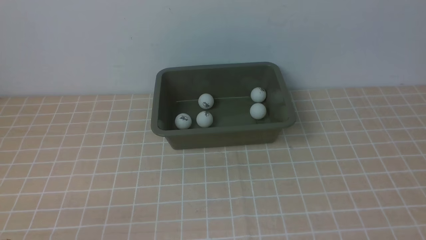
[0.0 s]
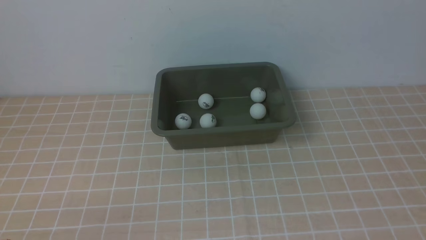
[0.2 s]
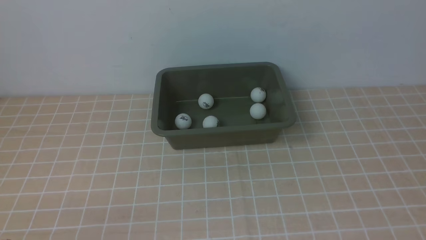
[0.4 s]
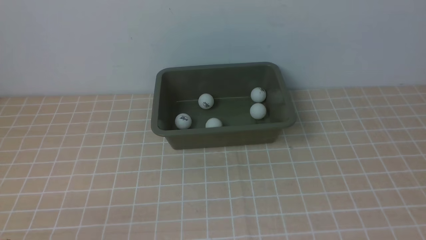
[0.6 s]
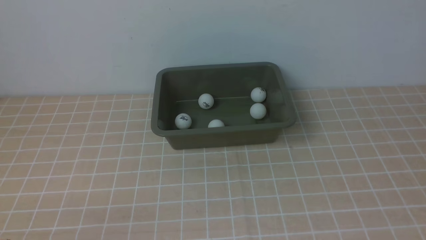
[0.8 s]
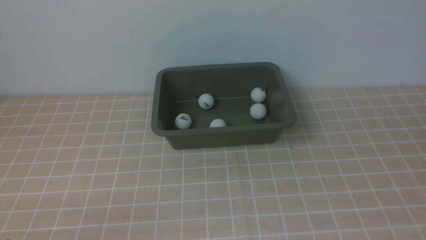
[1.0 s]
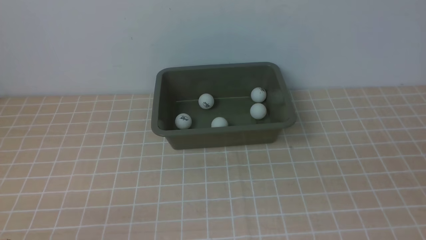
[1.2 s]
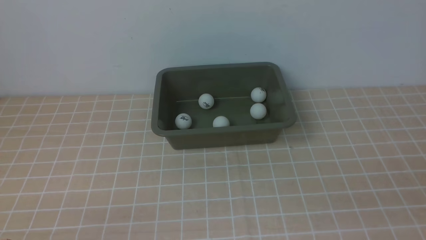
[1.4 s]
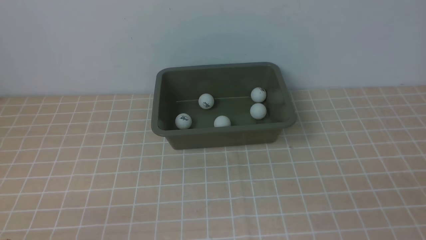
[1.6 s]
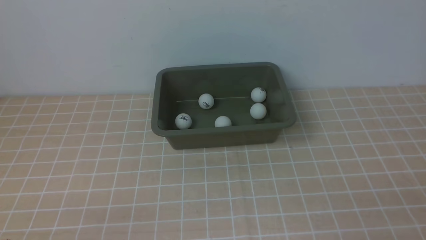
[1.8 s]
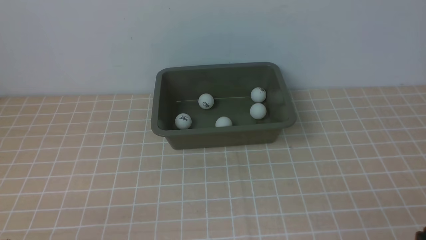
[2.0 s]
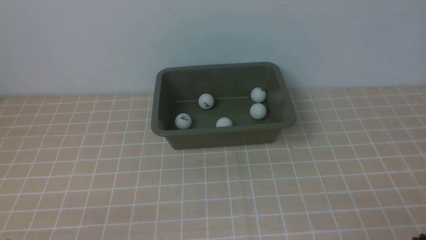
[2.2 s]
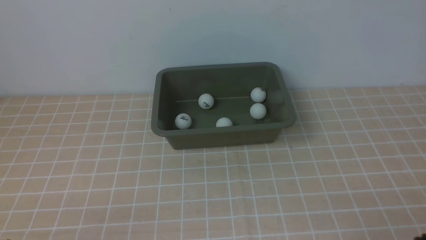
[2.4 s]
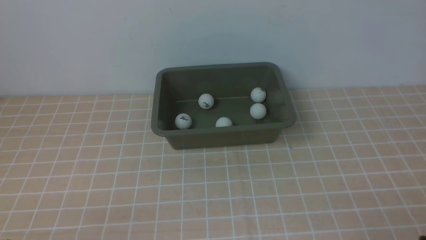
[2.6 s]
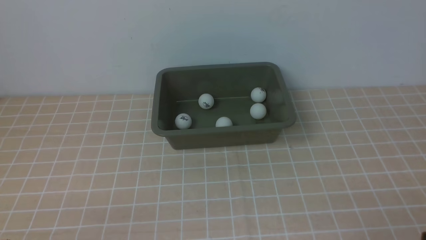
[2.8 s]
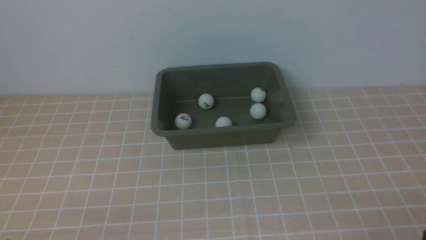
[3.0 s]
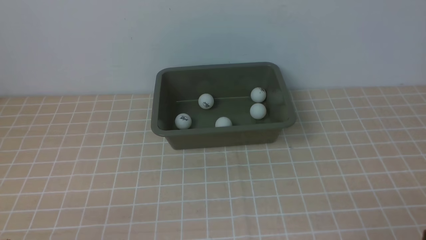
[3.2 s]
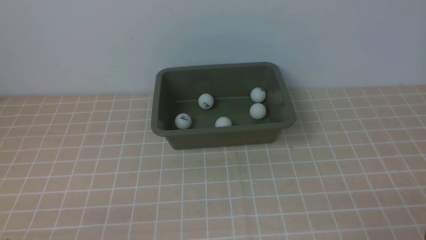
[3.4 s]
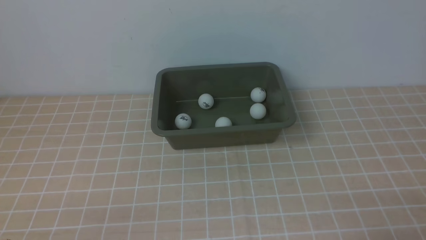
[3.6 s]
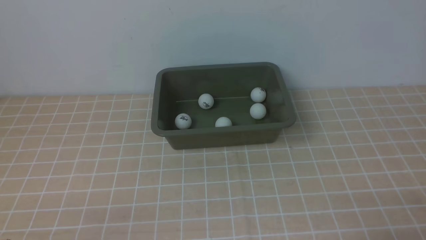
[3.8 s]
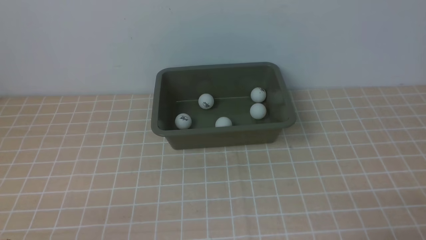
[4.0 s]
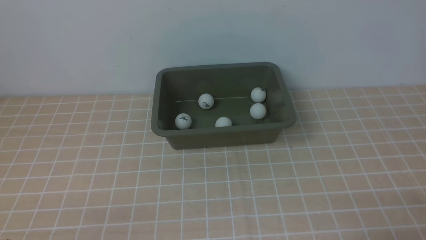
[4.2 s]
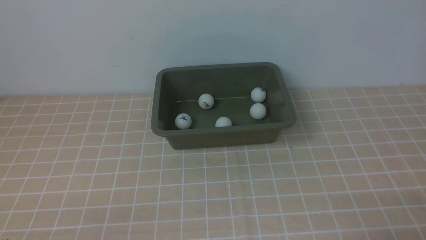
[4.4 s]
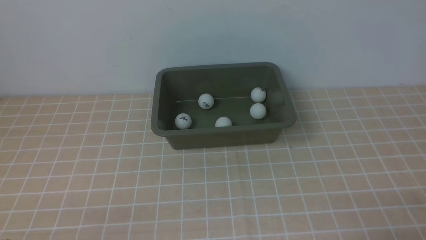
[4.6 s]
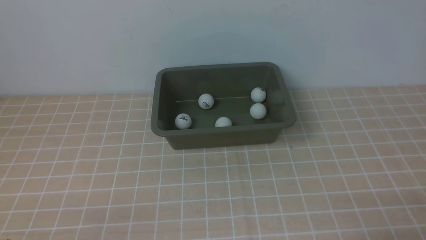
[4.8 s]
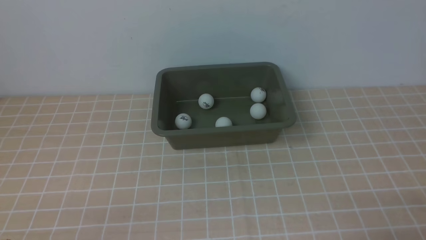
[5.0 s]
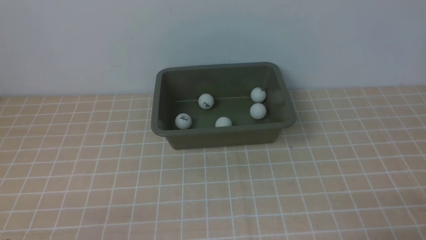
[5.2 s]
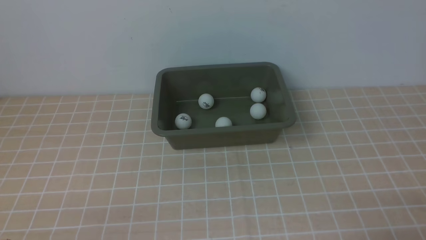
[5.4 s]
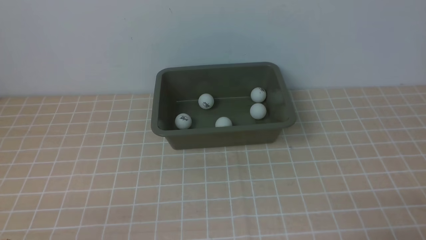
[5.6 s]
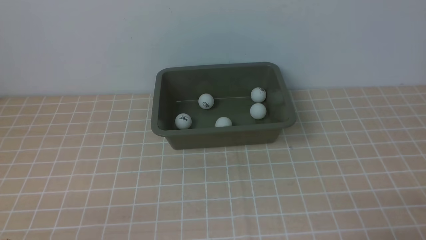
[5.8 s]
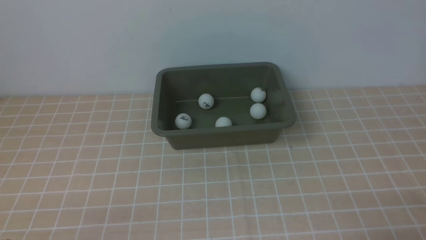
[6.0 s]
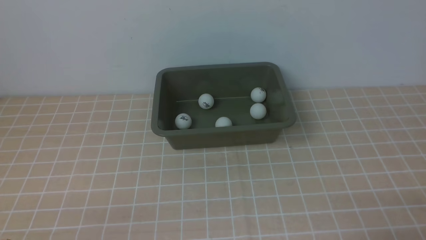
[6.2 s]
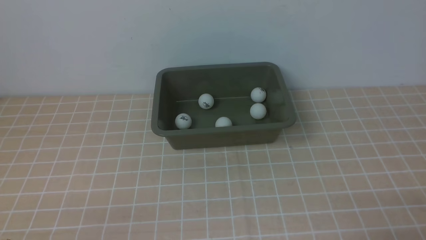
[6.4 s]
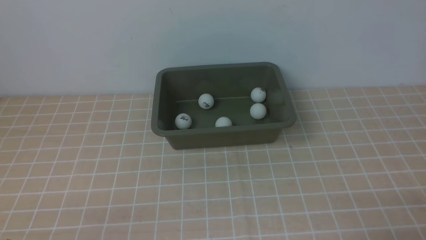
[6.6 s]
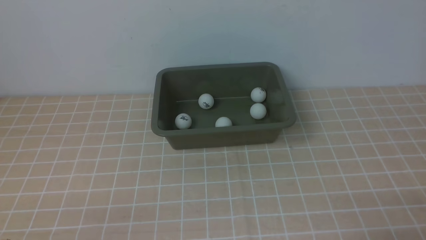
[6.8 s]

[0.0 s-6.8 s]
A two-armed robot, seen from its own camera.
4.0 to 6.8 s: Both grippers stay about where they are.

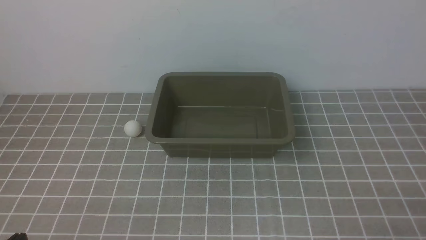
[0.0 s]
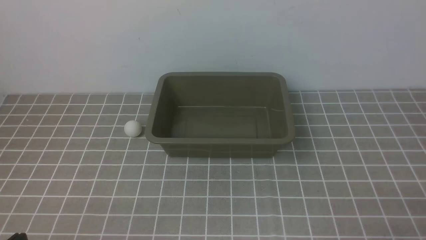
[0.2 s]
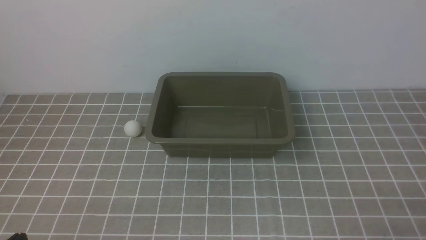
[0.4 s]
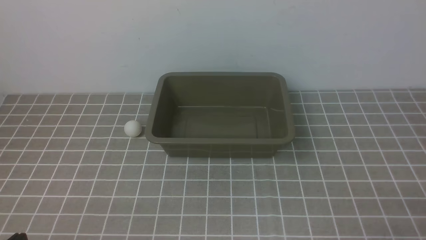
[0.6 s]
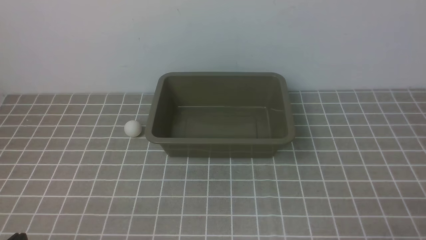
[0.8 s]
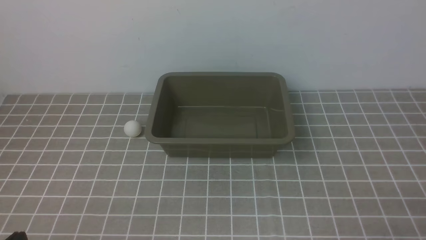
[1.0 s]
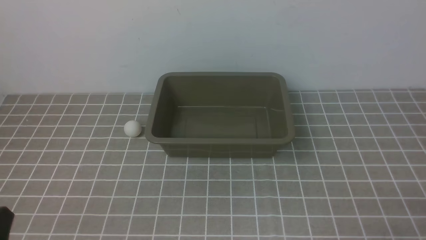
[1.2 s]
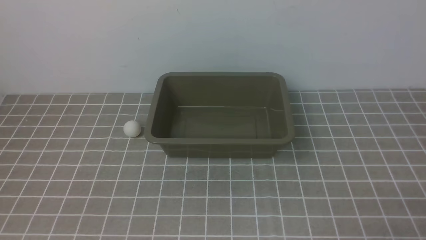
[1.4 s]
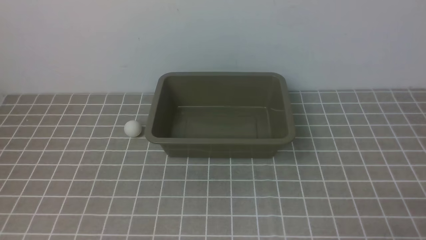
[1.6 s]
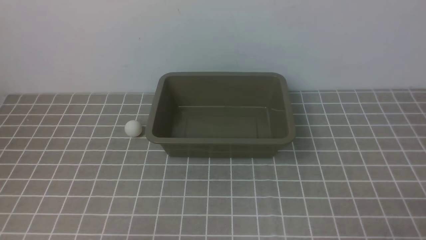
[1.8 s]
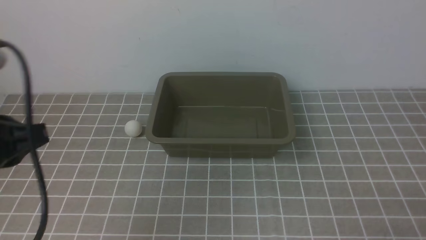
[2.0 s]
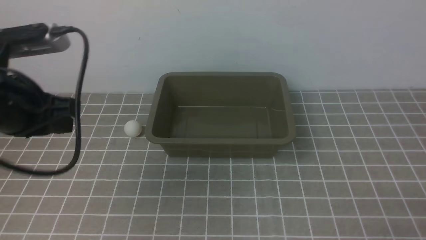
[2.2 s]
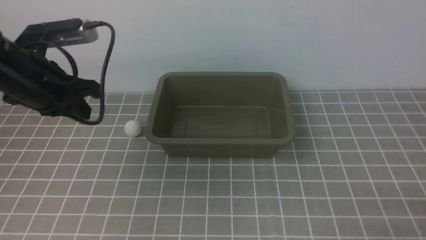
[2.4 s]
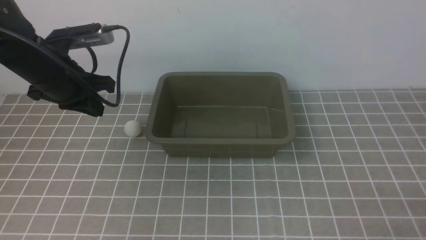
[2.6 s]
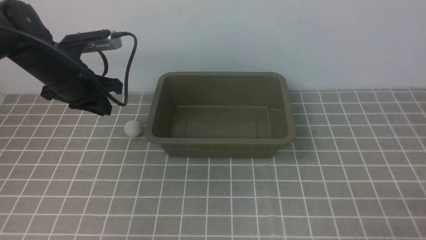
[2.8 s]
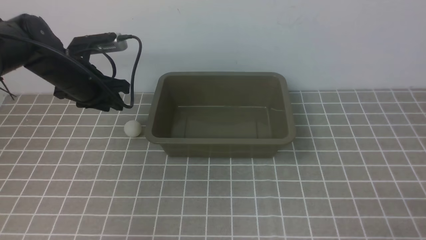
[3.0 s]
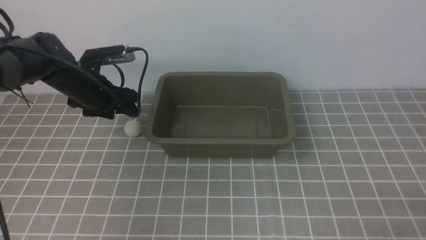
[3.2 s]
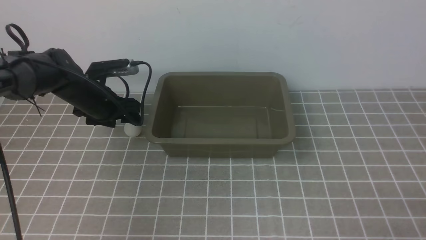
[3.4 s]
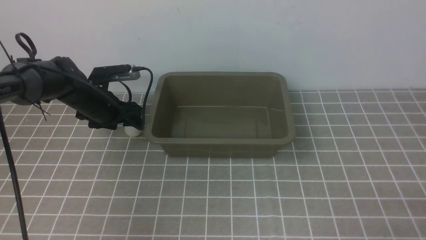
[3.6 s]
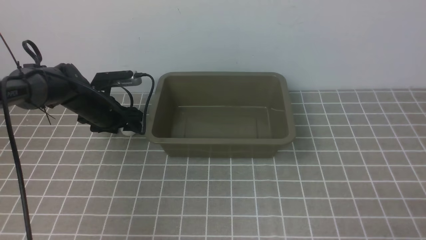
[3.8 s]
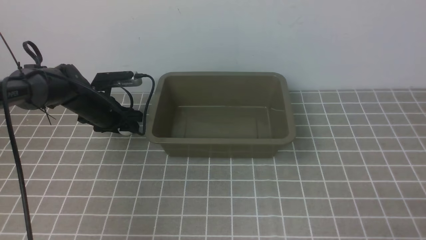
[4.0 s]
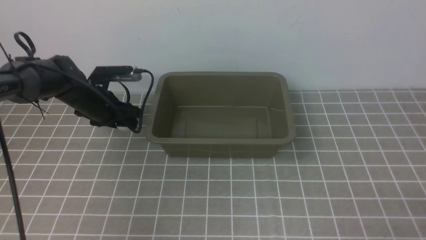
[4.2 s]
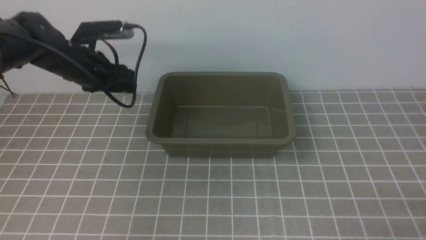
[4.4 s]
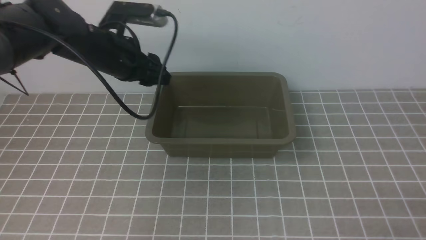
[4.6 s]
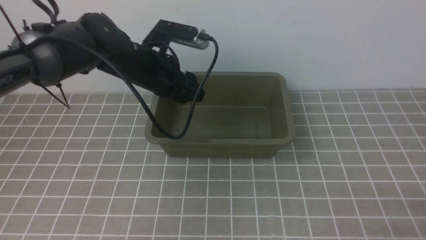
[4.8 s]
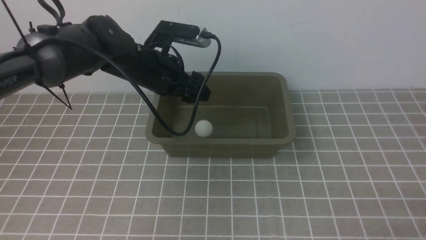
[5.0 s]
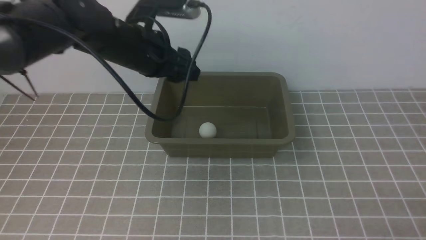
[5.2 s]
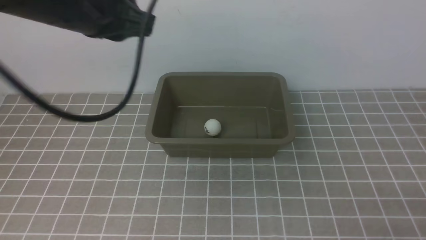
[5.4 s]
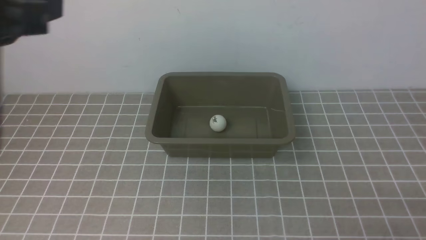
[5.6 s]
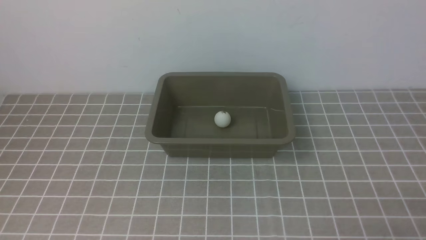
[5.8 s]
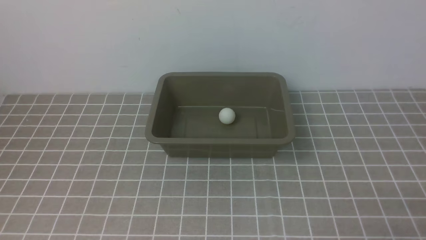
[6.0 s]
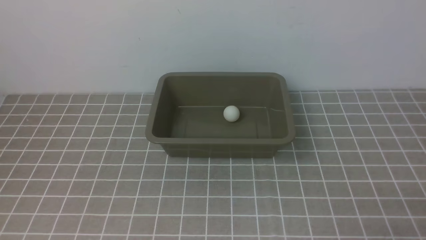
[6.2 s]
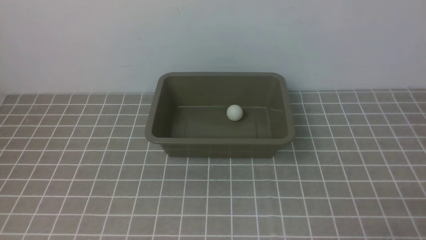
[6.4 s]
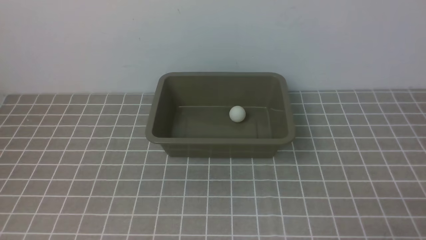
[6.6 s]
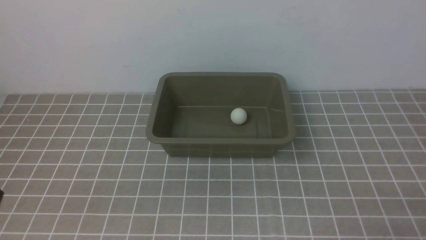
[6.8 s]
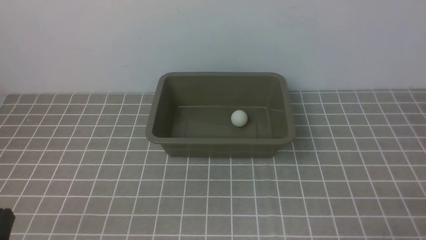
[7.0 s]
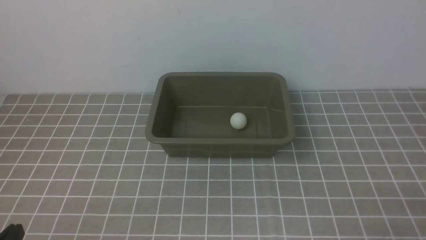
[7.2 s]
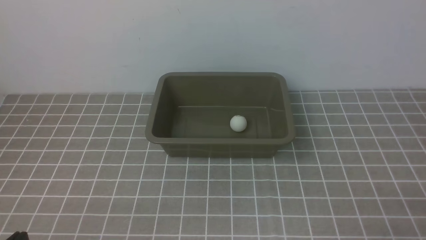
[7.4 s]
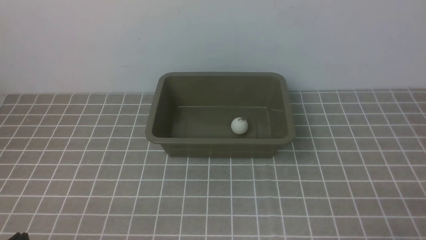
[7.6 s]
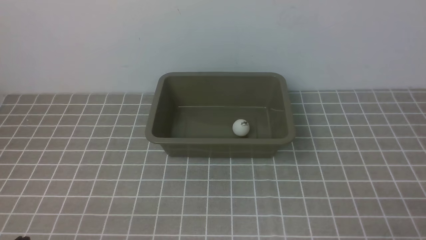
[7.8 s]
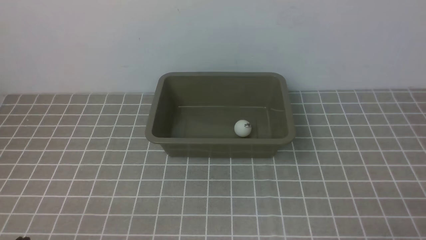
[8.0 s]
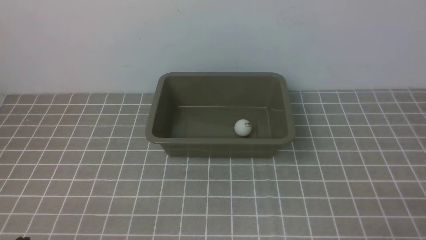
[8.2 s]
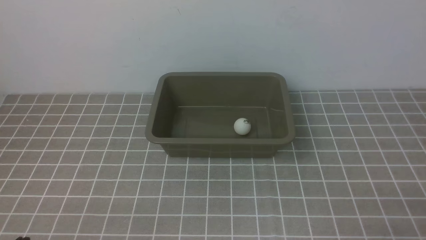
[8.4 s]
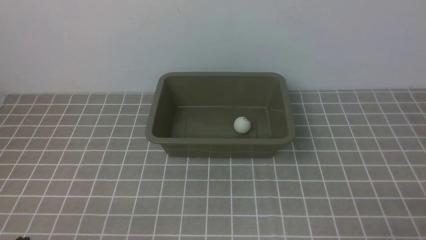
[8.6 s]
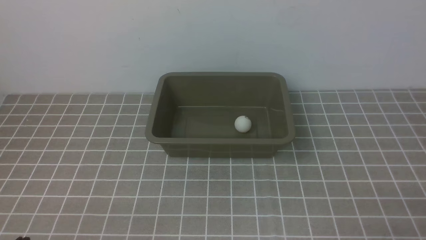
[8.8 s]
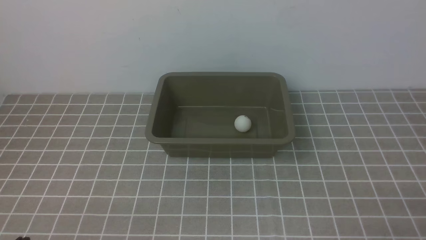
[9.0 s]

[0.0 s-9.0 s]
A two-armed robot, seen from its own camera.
Step, 0.0 to 4.4 s: use the left arm to clamp the table tennis ball closest to it.
Step, 4.6 to 5.0 s: use the left arm to put the table tennis ball into the box.
1.6 to 3.0 s: The left gripper shifts about 35 cm forward, and opens its fingers.
3.0 to 4.4 s: The left gripper travels downward and back again, some 10 cm each way.
4.4 to 6.0 s: The left gripper shifts some 40 cm backward, and closes.
6.0 to 7.6 s: The left gripper is displaced downward by some 20 cm.
7.6 to 9.0 s: Neither gripper changes place.

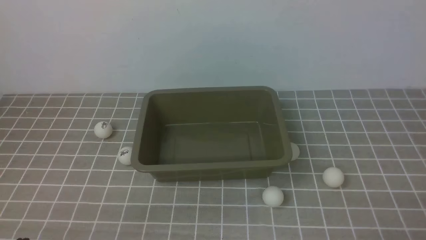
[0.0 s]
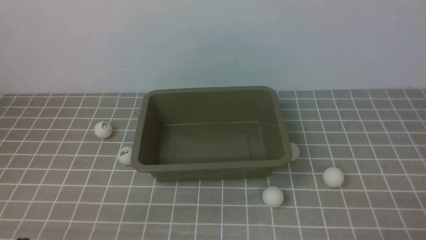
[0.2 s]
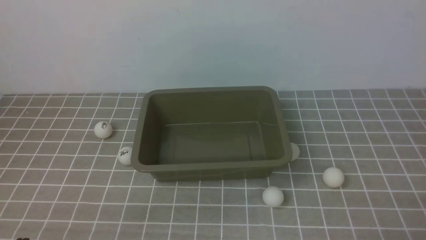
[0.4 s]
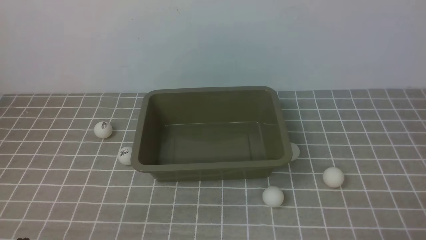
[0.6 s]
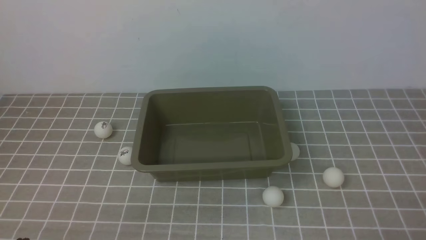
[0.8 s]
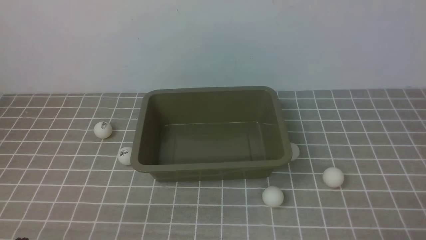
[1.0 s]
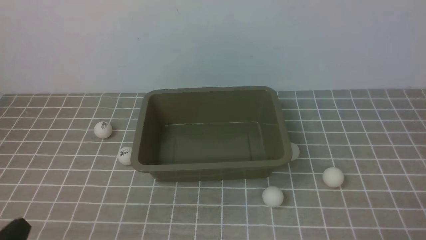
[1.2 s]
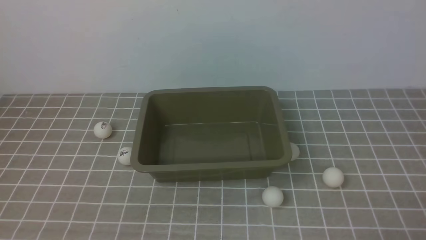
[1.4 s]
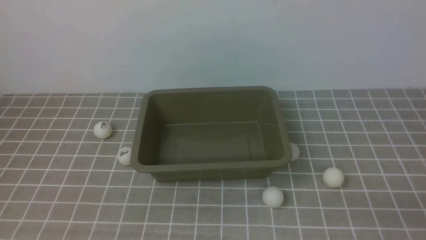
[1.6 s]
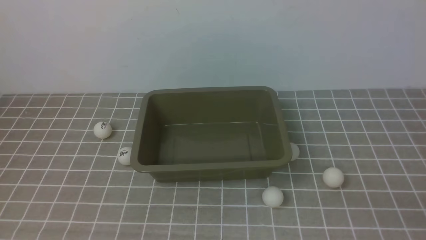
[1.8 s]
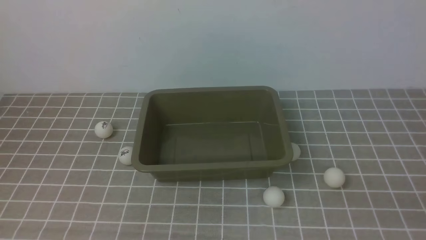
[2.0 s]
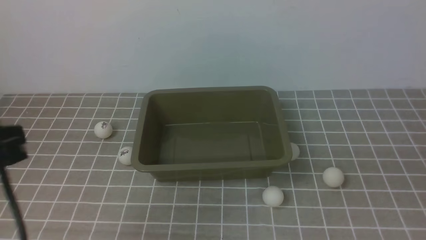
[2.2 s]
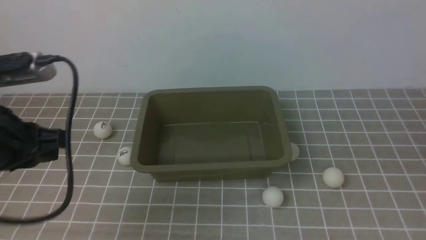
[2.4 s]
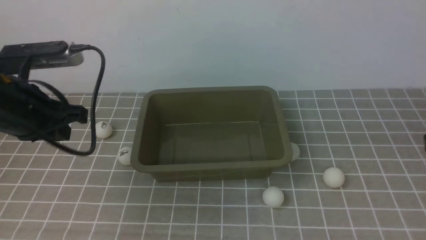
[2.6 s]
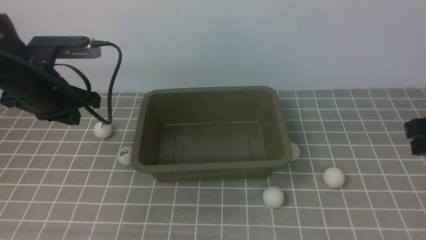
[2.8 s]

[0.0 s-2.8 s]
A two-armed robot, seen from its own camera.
1.4 to 2.8 s: The left gripper heads forward, covering some 30 cm. Meanwhile the right gripper moves forward and upward, approximately 20 cm.
